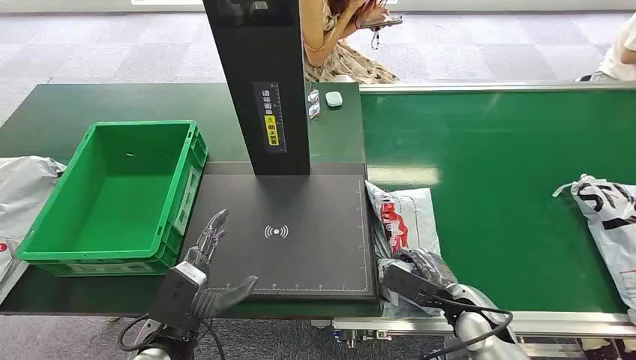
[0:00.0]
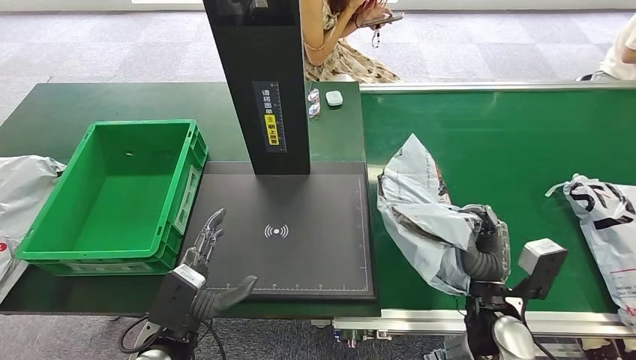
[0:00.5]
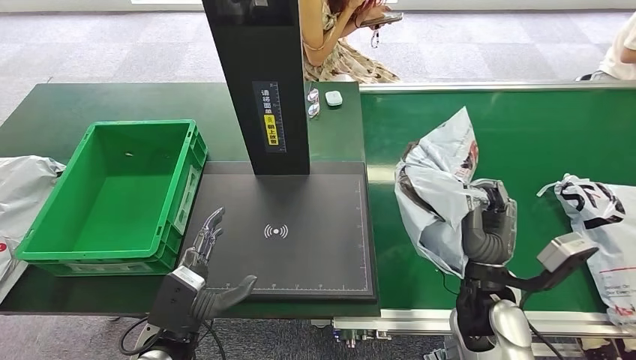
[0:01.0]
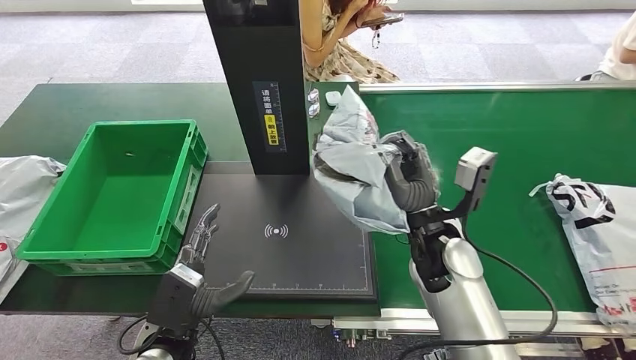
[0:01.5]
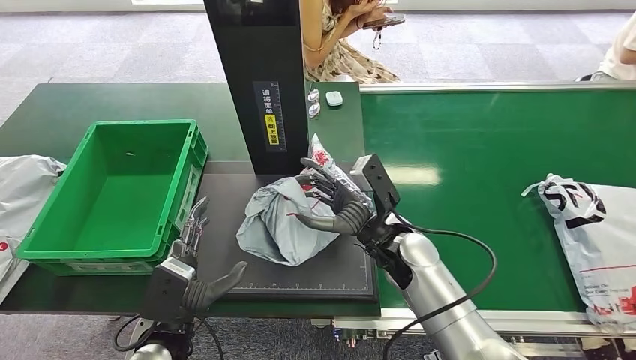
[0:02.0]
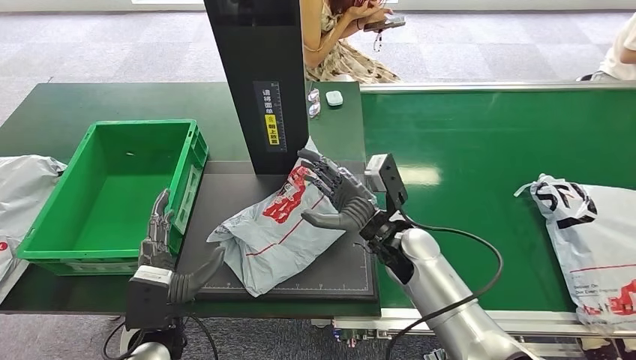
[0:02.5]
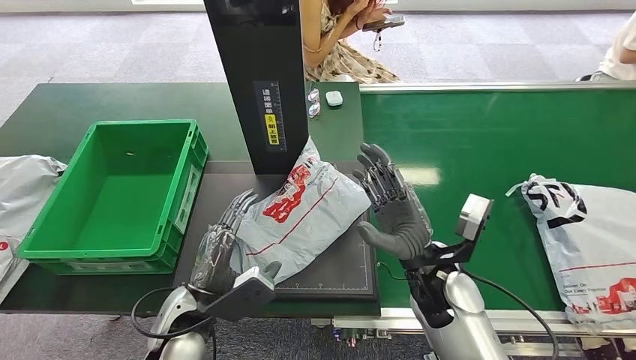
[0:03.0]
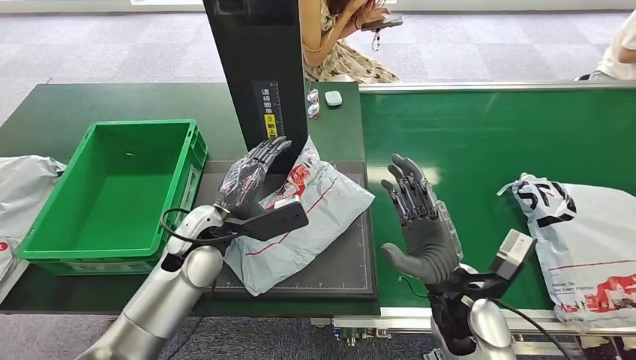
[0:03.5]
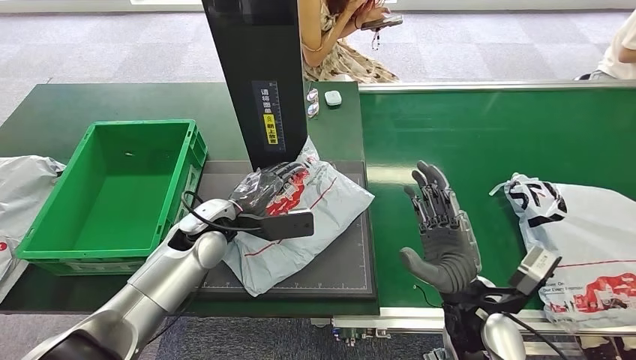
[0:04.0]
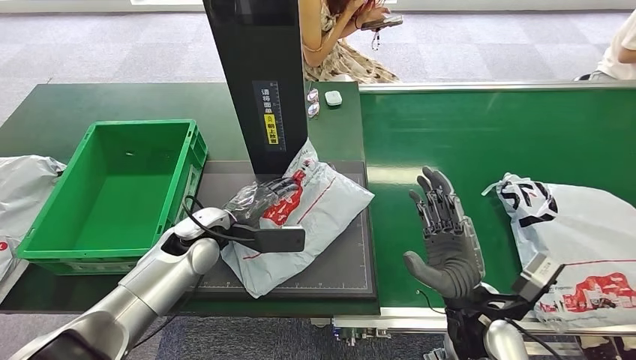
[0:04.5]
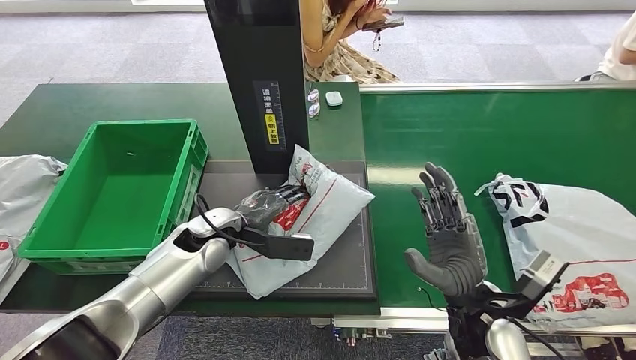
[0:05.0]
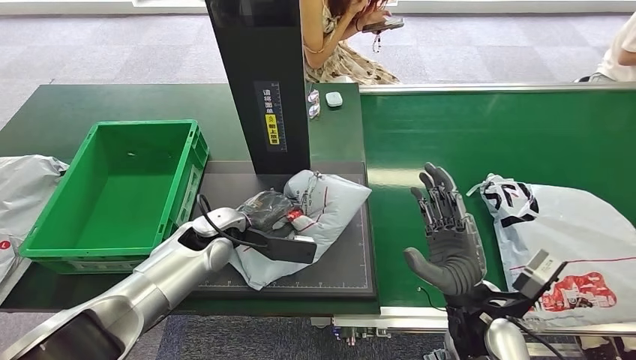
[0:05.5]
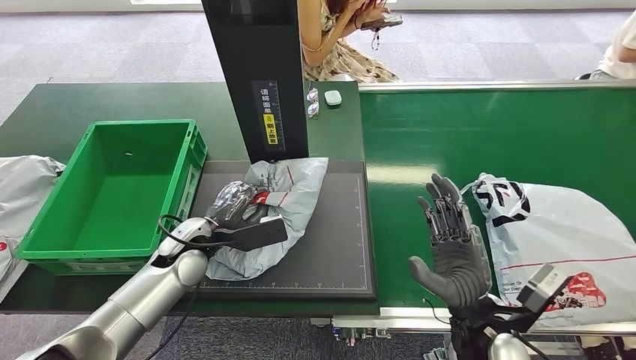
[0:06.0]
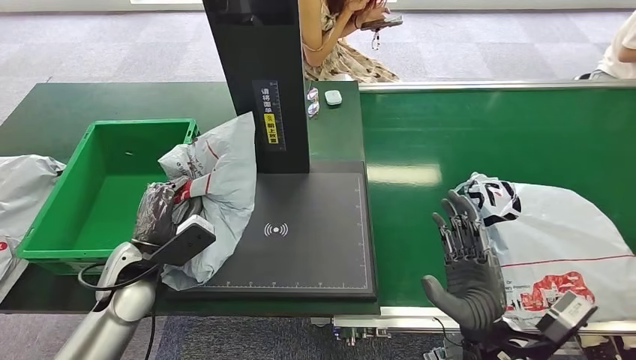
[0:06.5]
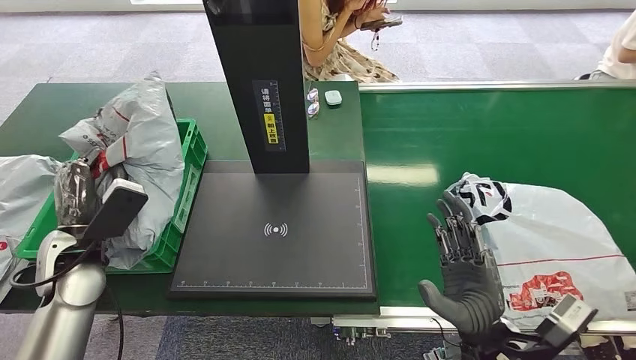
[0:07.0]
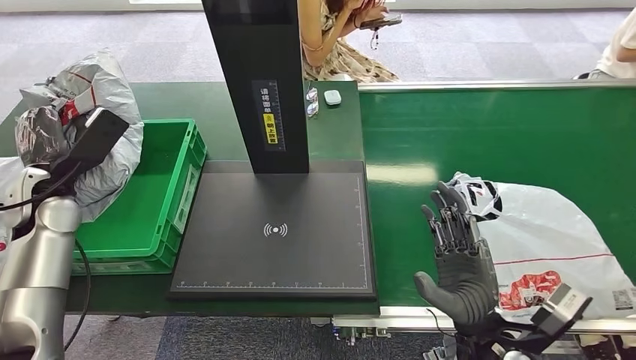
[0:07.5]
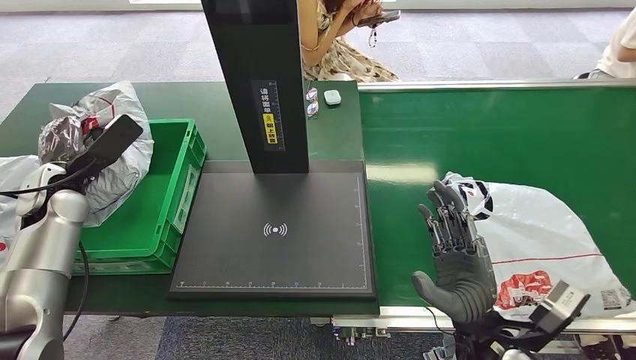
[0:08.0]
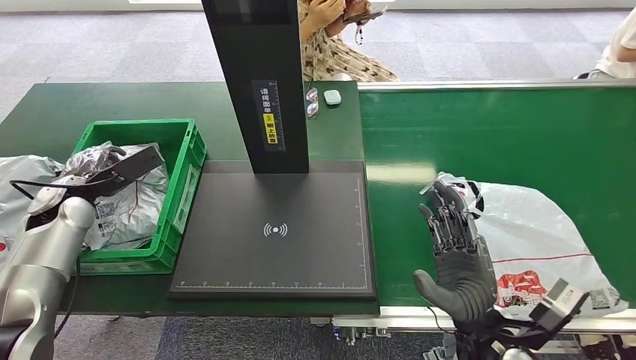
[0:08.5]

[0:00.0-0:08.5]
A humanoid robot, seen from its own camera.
Step, 0:00.0 to 0:01.5: Pick up the package from the conveyor belt.
Step, 0:02.0 to 0:03.5: Place the package onto the inbound machine.
Step, 0:04.0 to 0:06.5: Pick up the package from the inbound machine.
Step, 0:07.0 to 0:08.5: Place the package into the parcel locker.
